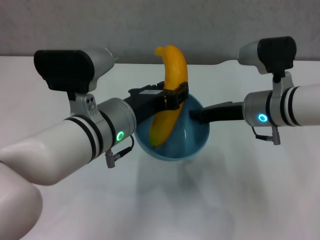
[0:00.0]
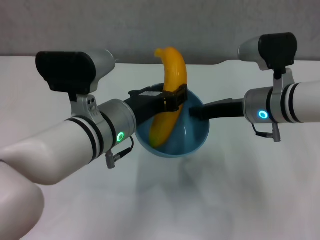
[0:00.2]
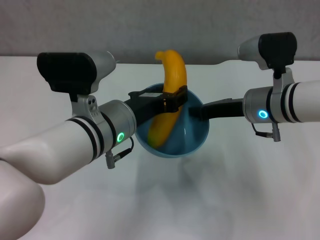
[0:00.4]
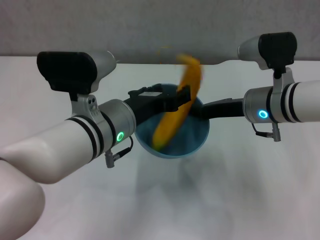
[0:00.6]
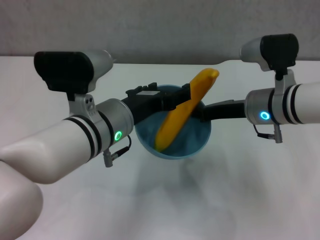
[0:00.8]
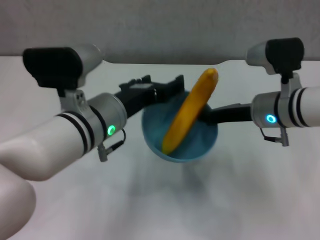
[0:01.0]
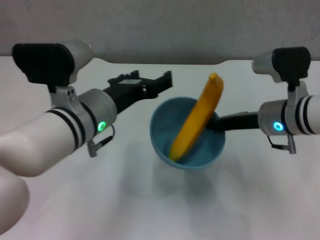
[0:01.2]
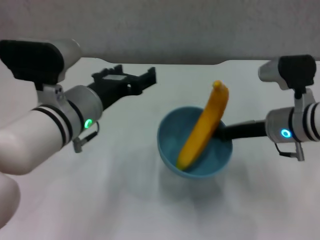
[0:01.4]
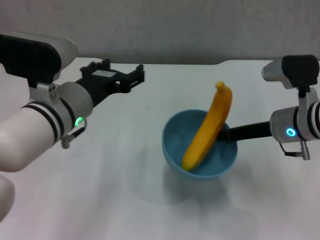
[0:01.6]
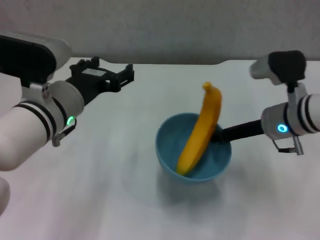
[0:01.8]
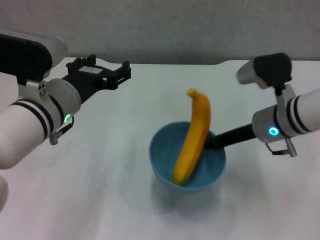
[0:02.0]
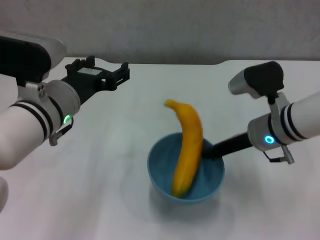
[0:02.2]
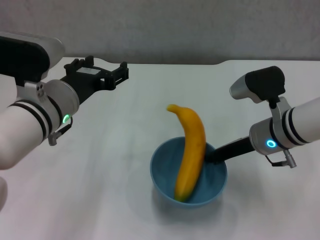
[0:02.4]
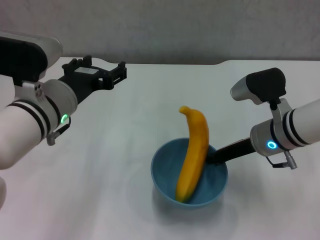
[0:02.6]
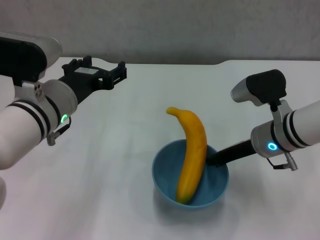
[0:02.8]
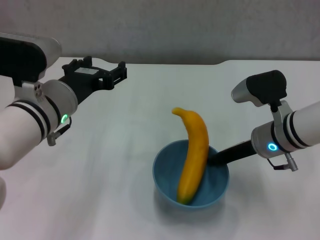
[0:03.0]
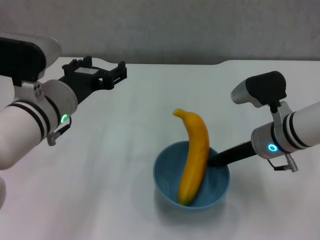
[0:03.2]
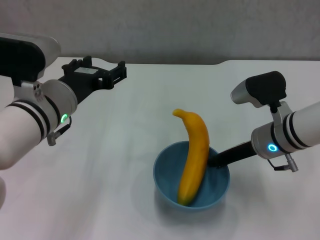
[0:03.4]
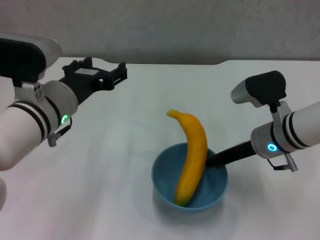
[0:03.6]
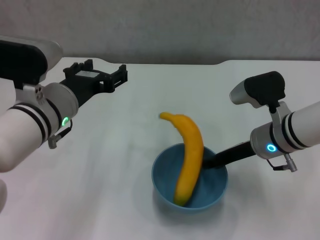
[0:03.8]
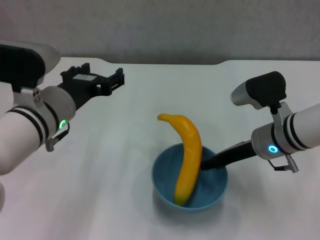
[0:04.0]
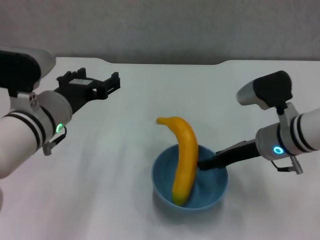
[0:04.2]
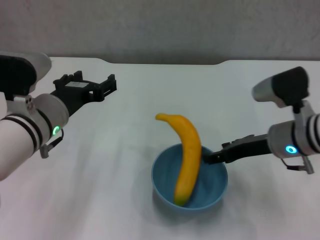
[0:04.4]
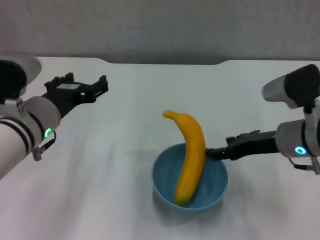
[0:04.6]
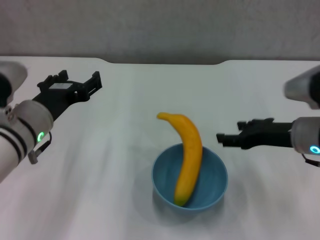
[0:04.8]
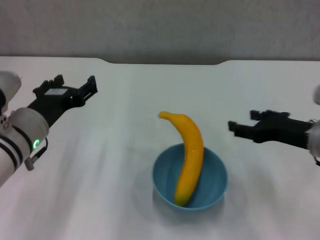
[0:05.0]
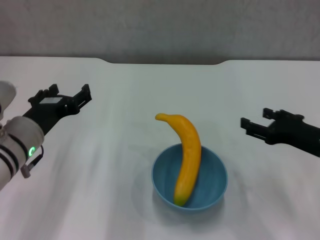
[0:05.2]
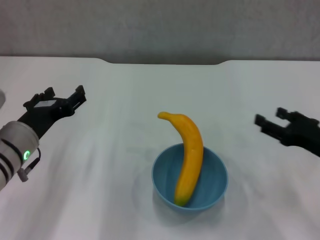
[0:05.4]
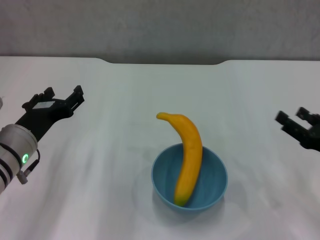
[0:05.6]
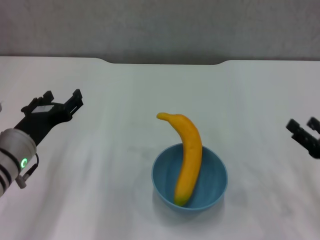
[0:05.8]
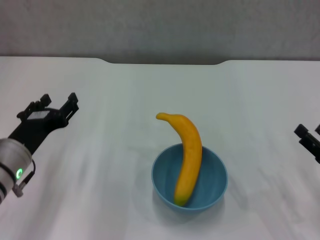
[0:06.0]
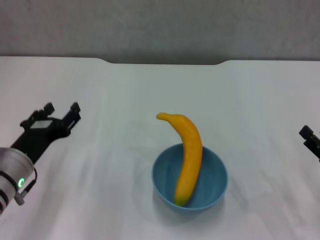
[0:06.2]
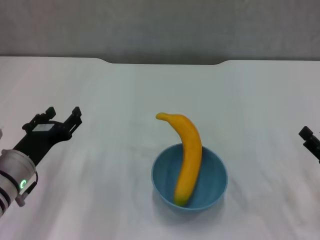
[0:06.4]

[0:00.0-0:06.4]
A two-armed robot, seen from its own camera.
Step, 0:00.8 to 0:04.2: Place the bowl on the table with right gripper.
0:00.0 to 0:01.6: The right gripper moves approximately 5 cm; the left gripper travels to the left by some 5 cm, and opens up.
0:03.2 to 0:04.8: The right gripper ends up about 5 cm from where it was, and opens.
0:04.8 to 0:06.4: The right gripper goes about 15 cm backward, to the right and downward. Meanwhile the left gripper moves downward, about 10 cm.
